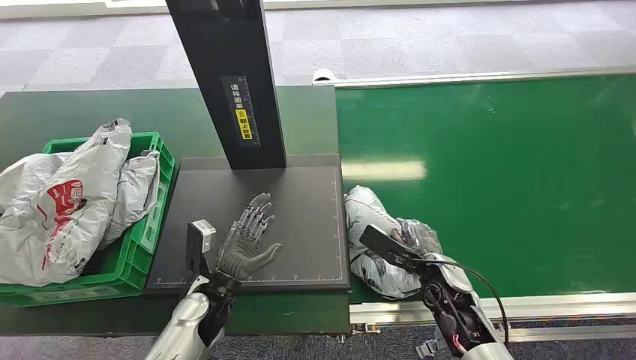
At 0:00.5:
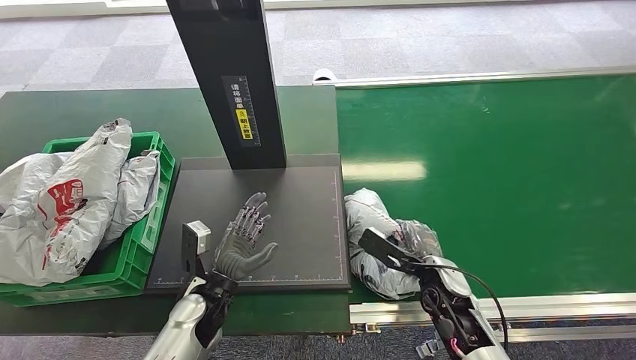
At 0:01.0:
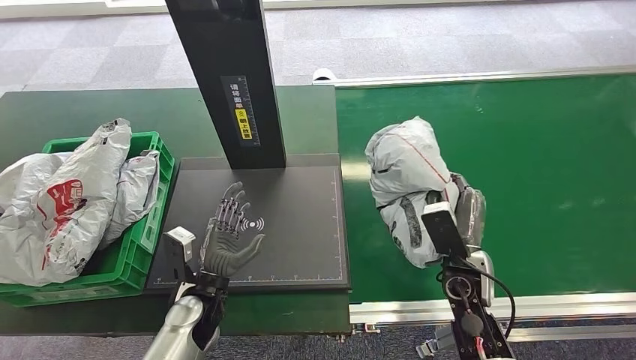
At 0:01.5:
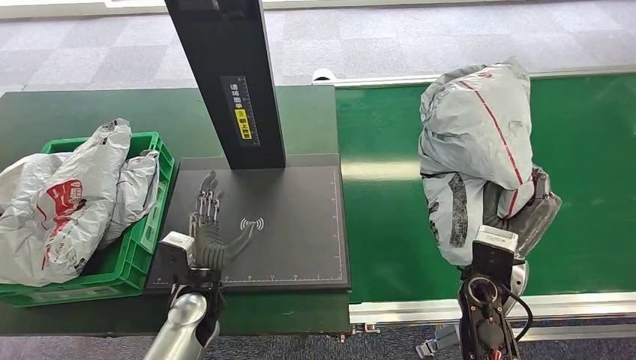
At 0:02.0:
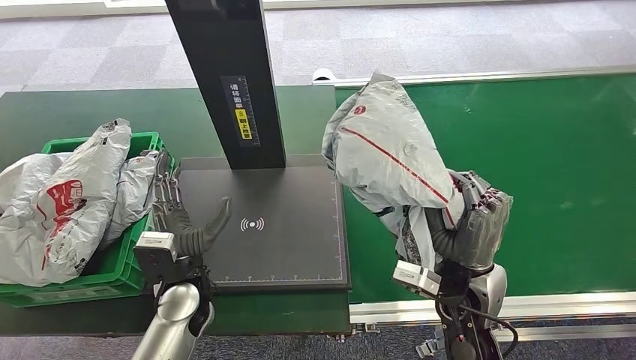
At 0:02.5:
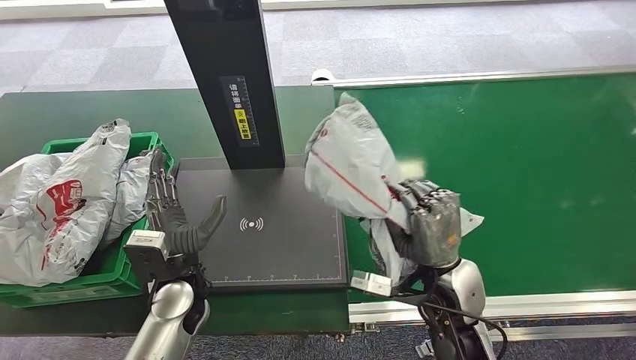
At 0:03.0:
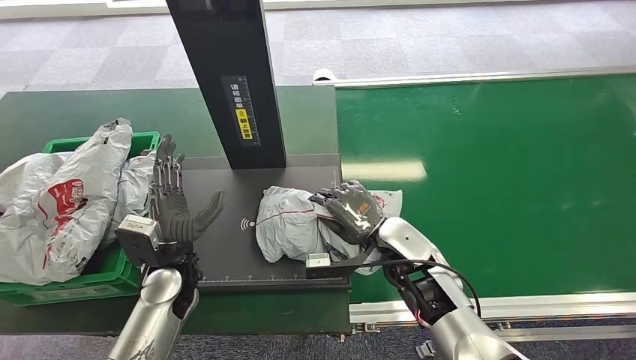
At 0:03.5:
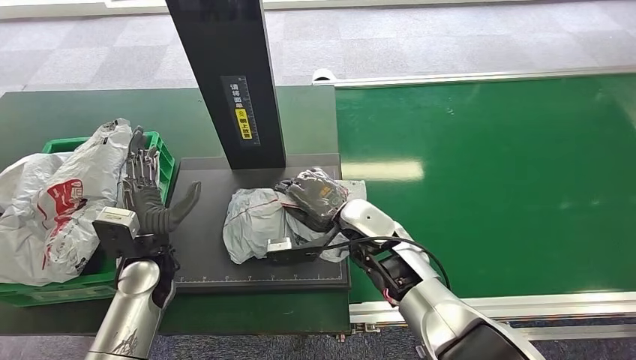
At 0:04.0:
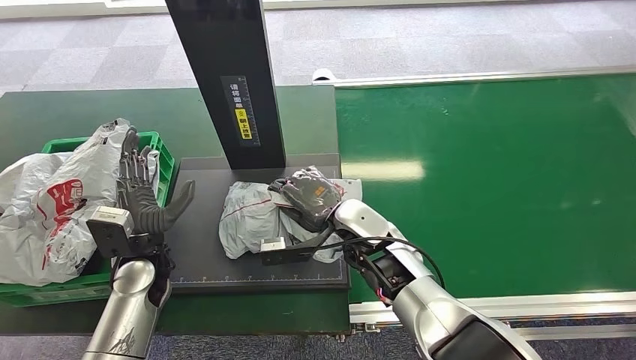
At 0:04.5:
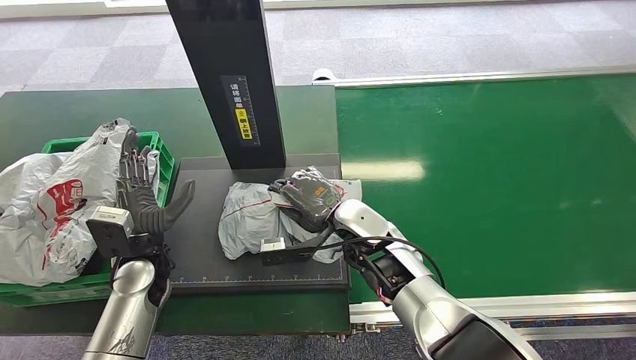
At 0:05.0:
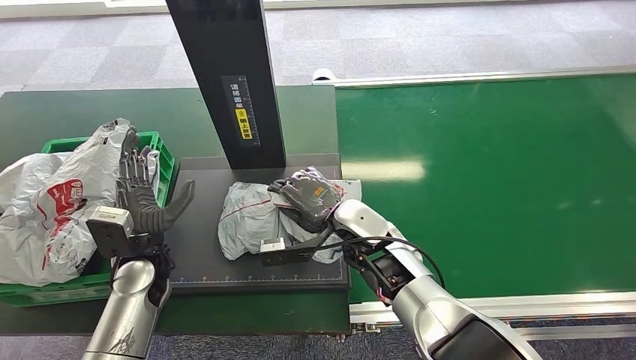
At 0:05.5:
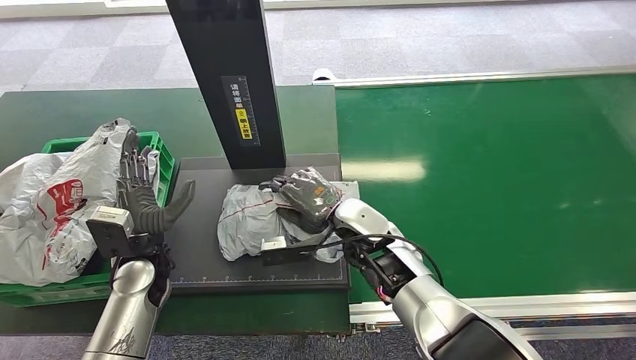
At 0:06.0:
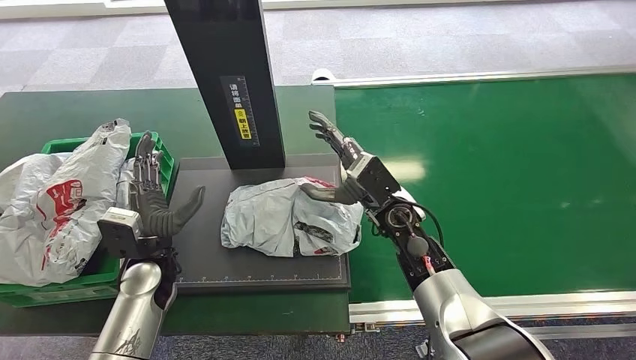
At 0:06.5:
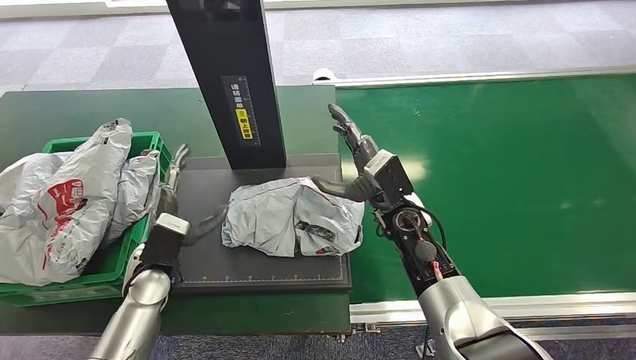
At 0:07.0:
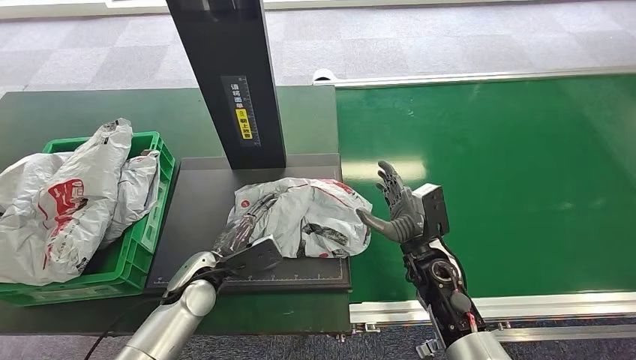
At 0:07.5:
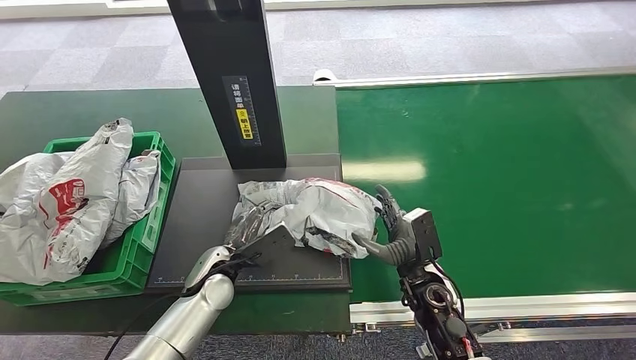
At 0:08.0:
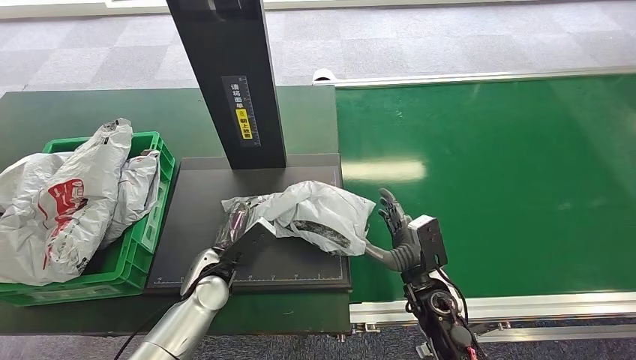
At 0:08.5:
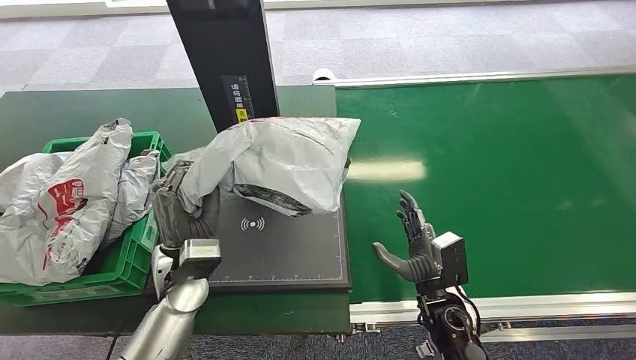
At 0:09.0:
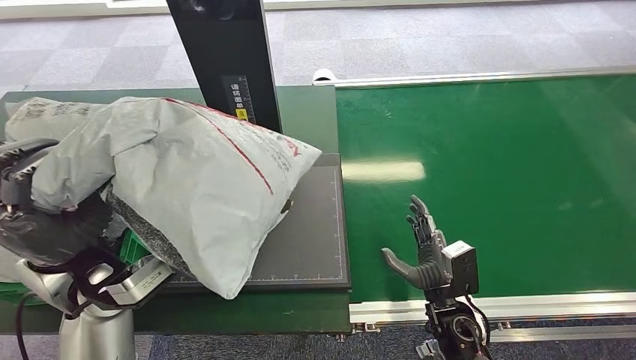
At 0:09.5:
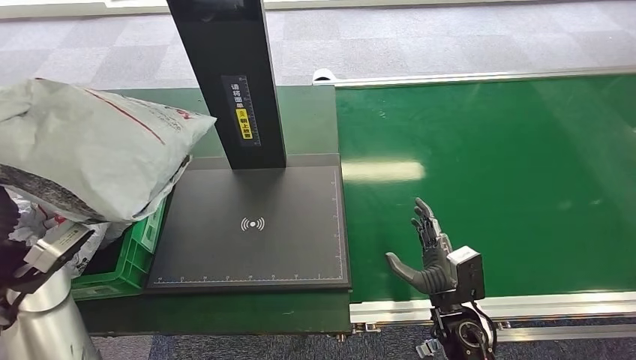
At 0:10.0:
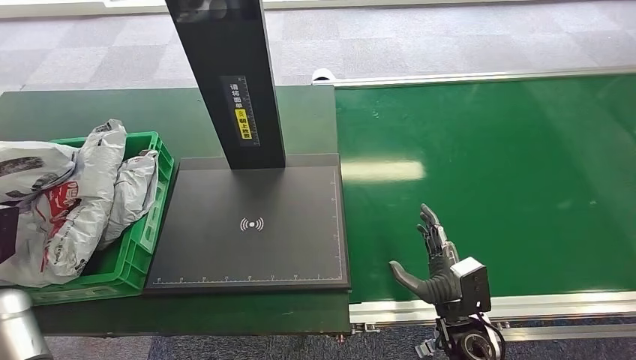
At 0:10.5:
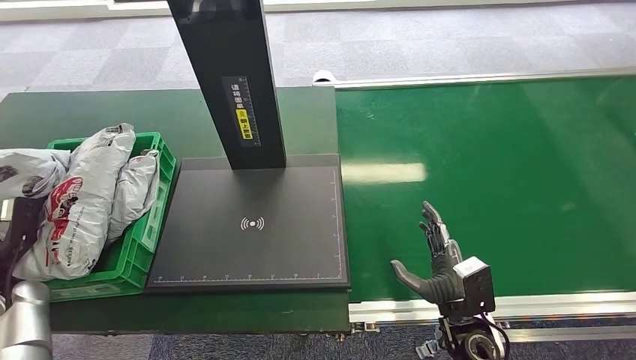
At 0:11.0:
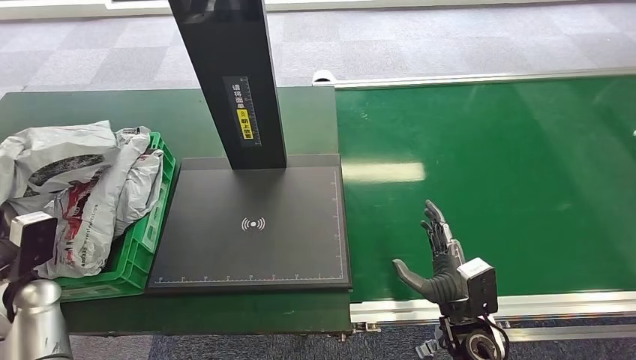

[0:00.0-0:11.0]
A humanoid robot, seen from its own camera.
Step, 0:00.0 to 0:01.0: Pick up the package from the conveyor belt.
Step, 0:01.5 to 0:05.5: Place the package onto the inbound machine.
Step, 0:06.0 to 0:08.0: Pick up the package from the inbound machine.
Step, 0:08.5 to 0:11.0: Place the package into the parcel locker.
0:03.5 to 0:05.5: The hands move only a little.
0:05.5 to 0:07.5: The left hand travels to the right and downward by approximately 10 cm. The right hand moves to the right, downward and backward, roughly 15 cm.

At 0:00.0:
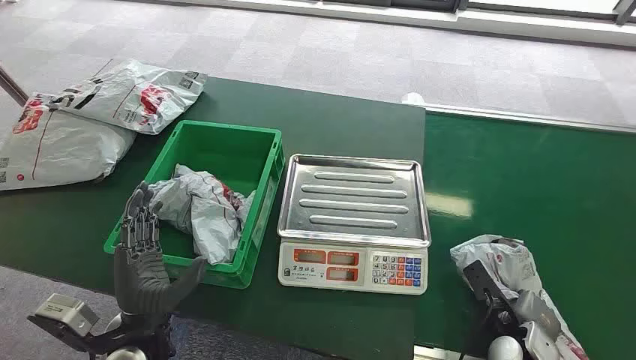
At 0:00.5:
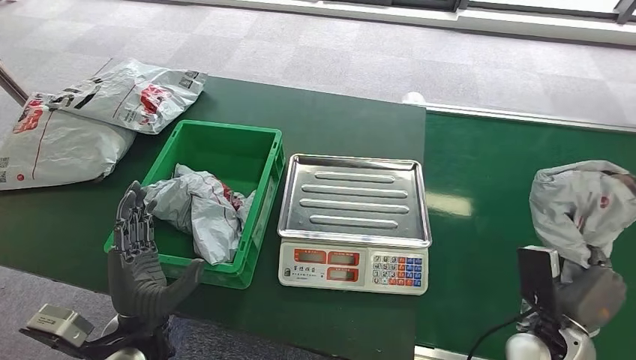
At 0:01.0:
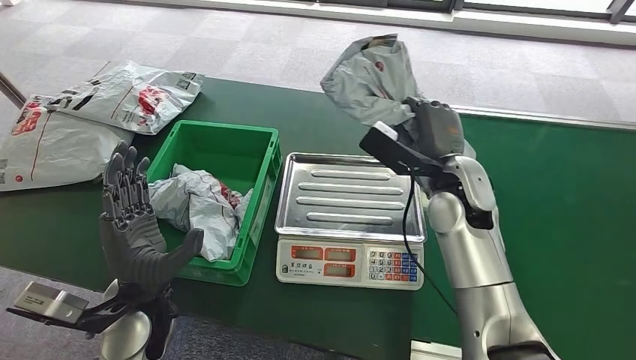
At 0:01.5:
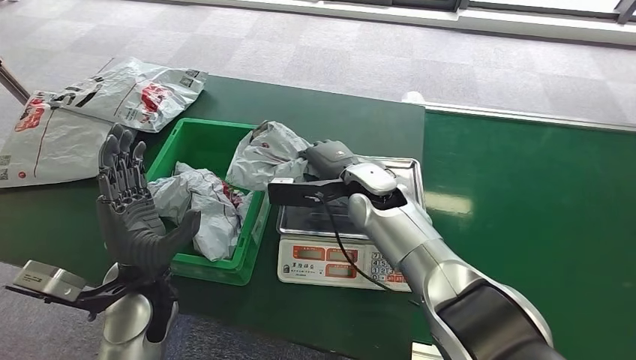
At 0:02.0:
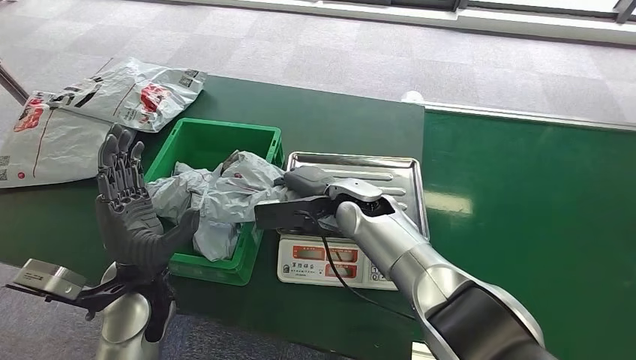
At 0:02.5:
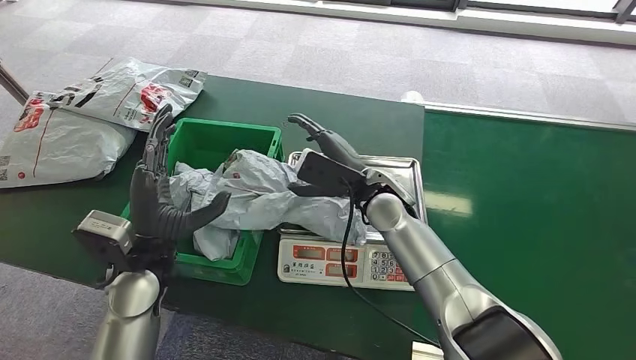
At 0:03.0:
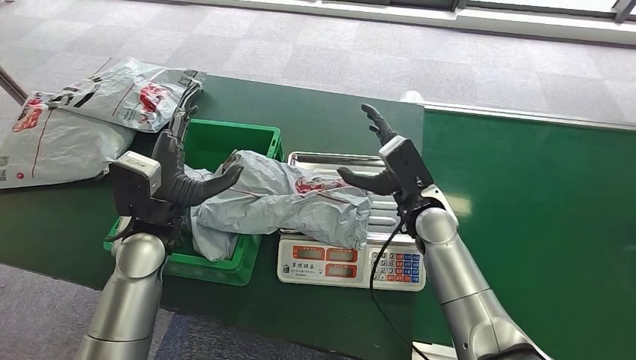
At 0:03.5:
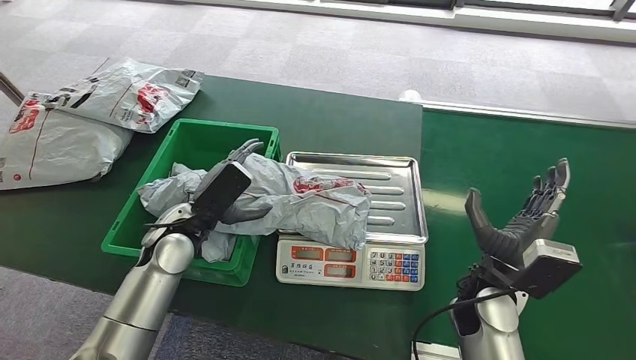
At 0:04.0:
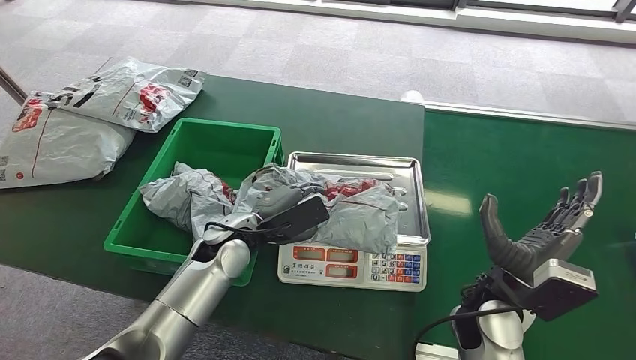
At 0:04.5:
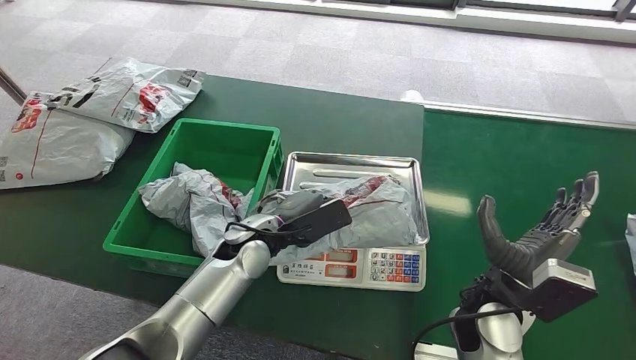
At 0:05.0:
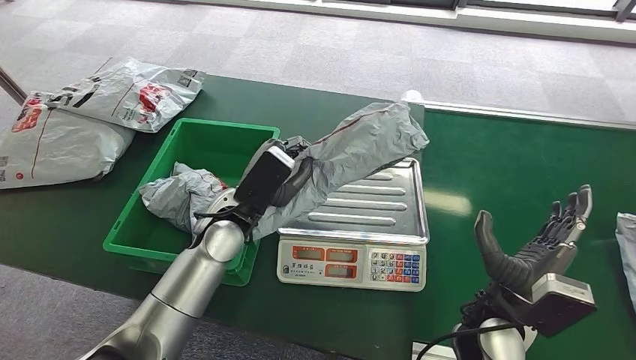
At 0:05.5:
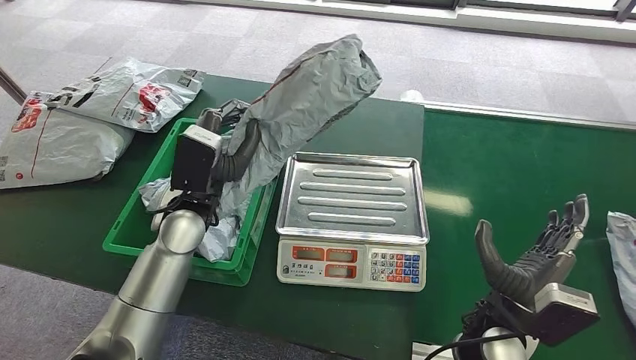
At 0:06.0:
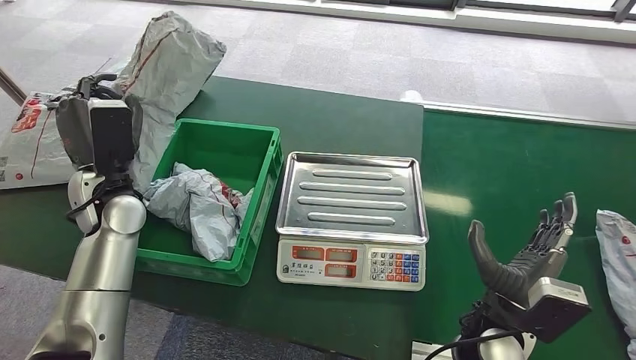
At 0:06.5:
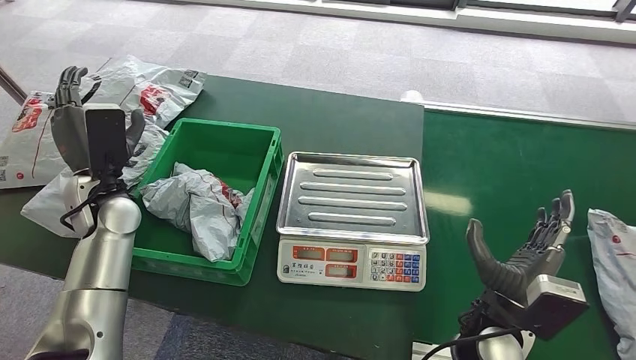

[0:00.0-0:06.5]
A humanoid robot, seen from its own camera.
Step, 0:00.0 to 0:00.5: Pick up the package from the conveyor belt.
Step, 0:01.0 to 0:01.5: Place the package onto the inbound machine.
Step, 0:04.0 to 0:05.0: Pick up the package from the inbound machine.
Step, 0:05.5 to 0:06.5: Place the package into the parcel locker.
